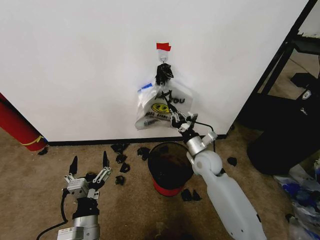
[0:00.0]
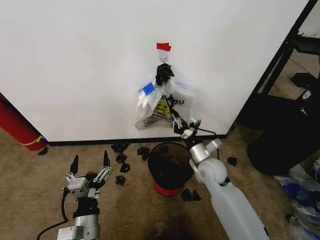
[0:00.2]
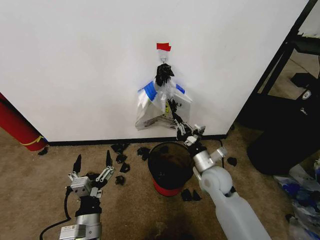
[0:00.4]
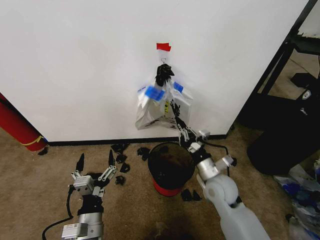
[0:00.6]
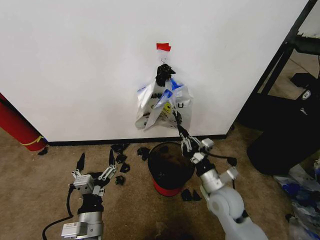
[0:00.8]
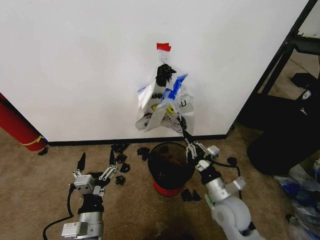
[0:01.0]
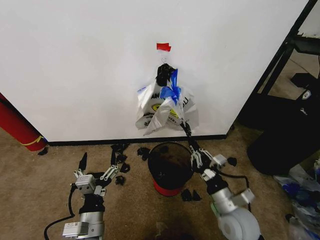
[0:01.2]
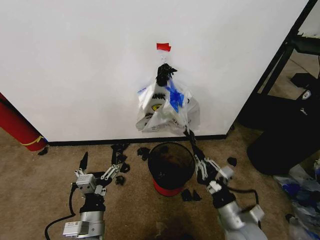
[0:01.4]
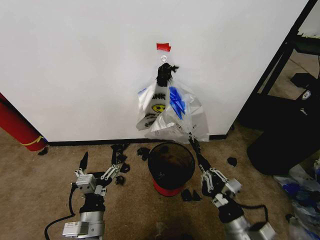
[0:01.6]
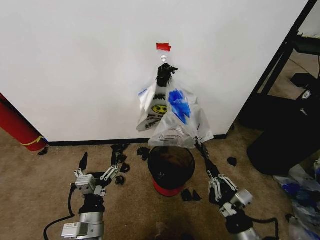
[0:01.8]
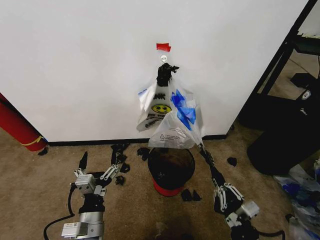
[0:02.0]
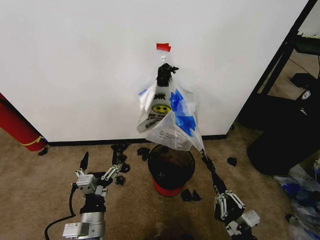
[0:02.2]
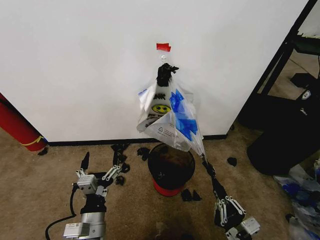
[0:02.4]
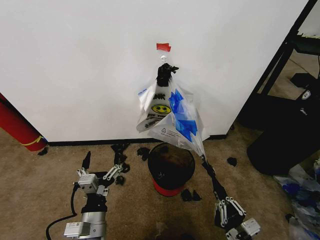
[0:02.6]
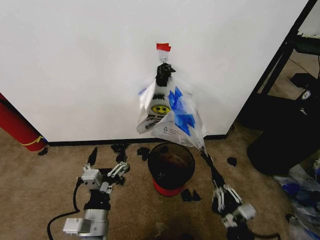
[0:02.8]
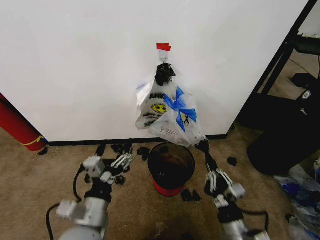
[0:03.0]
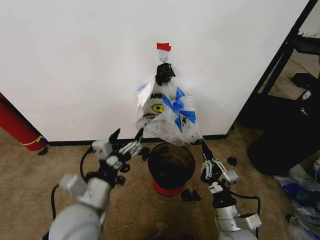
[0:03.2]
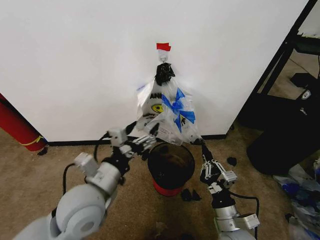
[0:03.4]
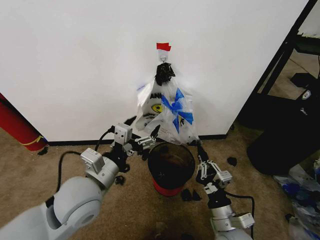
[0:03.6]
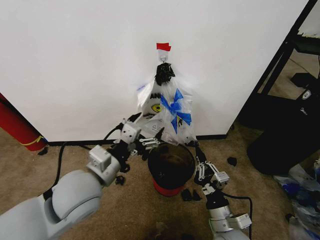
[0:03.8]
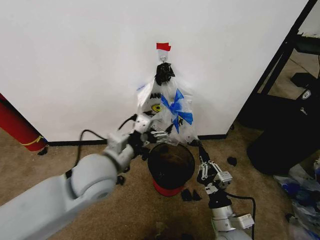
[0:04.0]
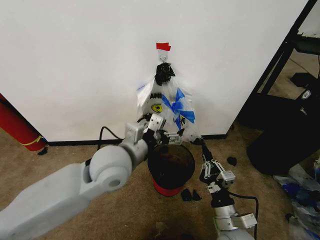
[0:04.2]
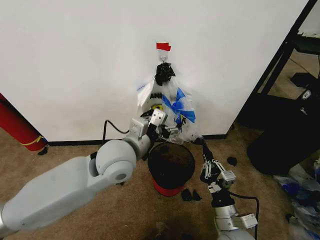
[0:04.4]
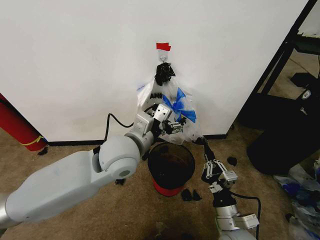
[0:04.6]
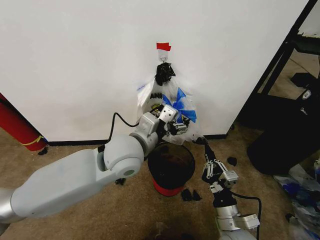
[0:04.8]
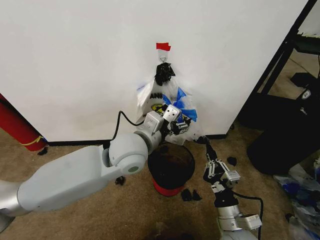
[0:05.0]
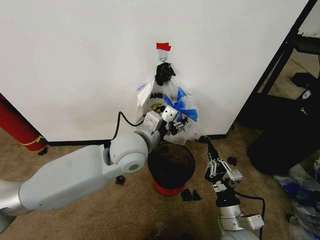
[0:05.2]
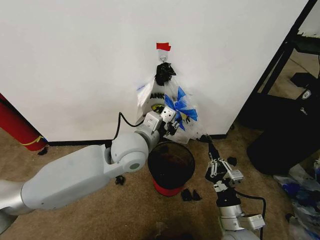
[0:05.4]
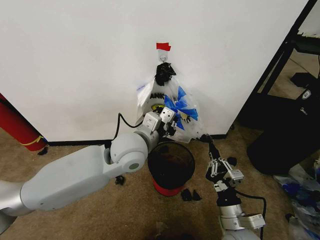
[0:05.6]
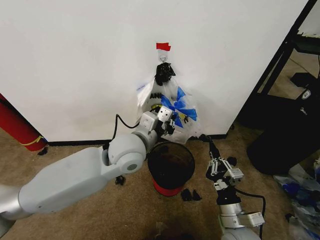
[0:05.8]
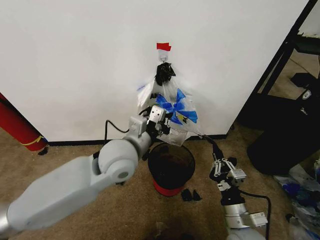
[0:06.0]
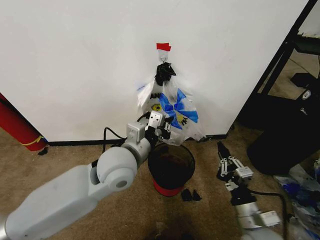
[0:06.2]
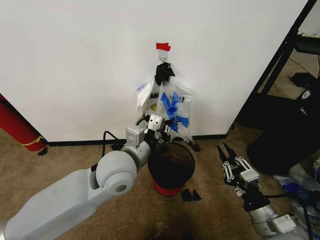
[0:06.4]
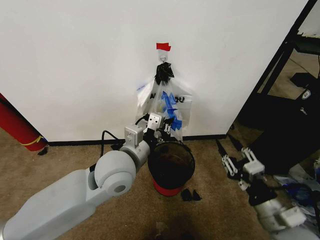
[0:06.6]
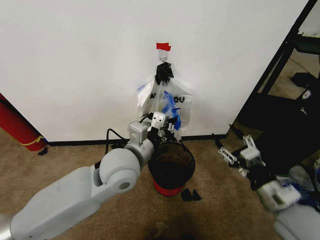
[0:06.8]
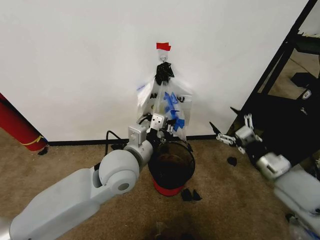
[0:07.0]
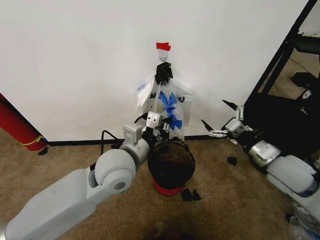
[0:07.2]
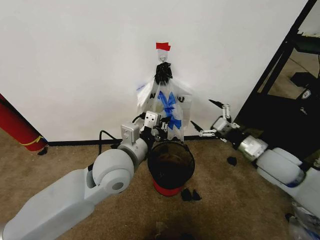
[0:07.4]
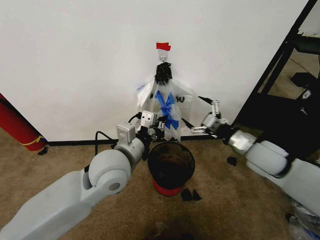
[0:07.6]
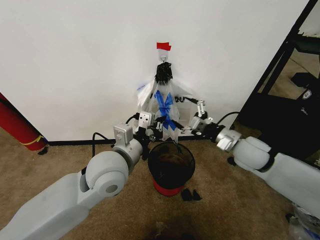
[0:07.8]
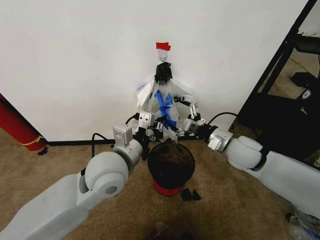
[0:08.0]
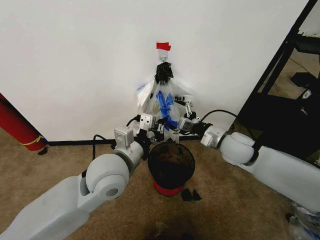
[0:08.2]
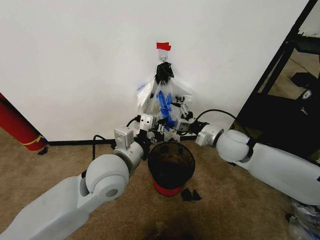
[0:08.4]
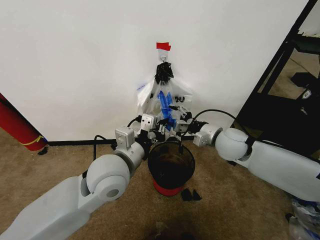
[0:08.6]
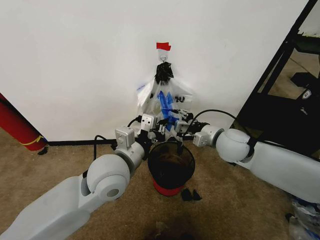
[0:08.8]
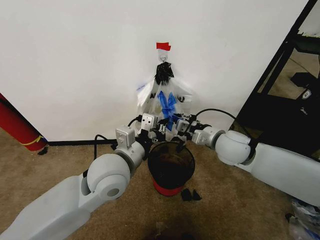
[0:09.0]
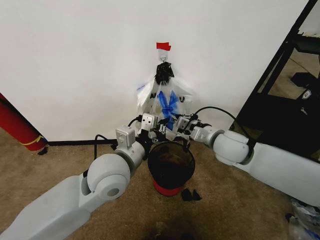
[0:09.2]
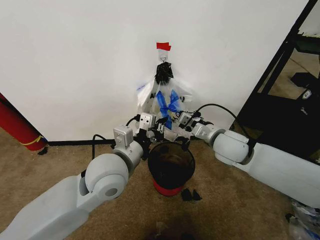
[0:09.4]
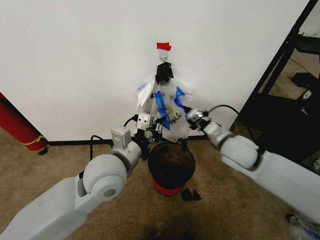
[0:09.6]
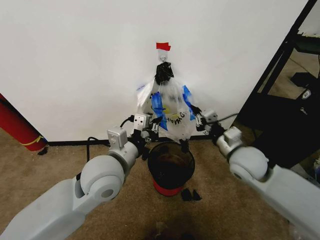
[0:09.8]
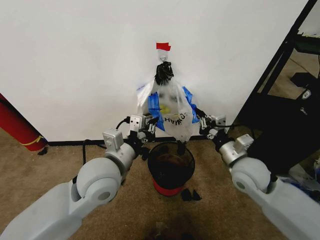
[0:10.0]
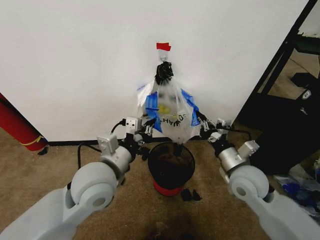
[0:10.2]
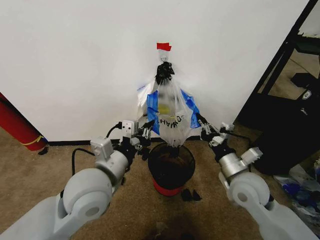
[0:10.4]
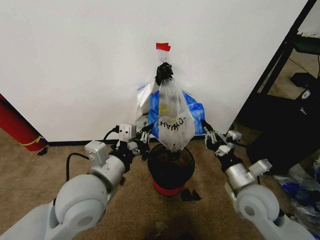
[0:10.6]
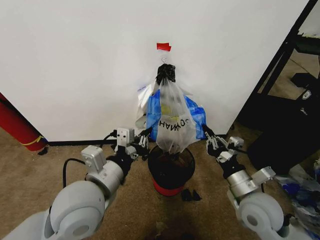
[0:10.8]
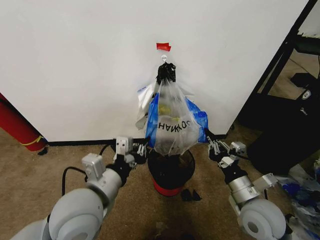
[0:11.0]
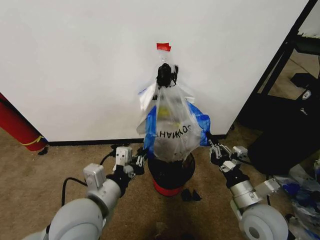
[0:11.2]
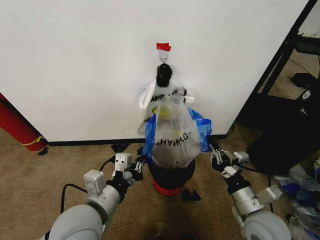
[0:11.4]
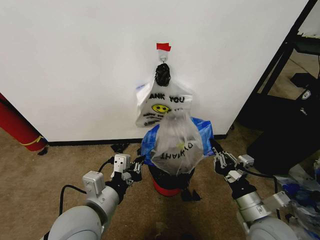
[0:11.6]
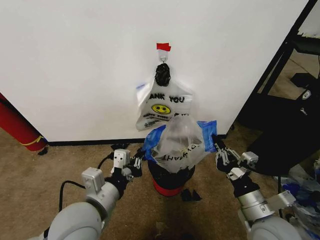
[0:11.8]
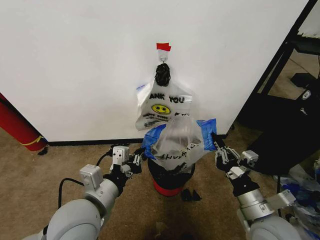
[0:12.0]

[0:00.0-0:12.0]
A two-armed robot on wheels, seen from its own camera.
Task of the whole recording: Pick up the garbage bag from the wall and place it over the trash bin.
0:00.0 to 0:01.6: The right gripper is displaced backward by some 25 cm.
0:01.6 to 0:03.0: The right gripper moves some 10 cm backward and comes back; the left gripper shifts some 5 cm upward.
0:03.0 to 0:04.4: The left gripper travels forward, upward and to the right by approximately 20 cm.
0:04.4 to 0:06.0: The left gripper closes.
0:06.0 to 0:07.6: The right gripper travels forward and upward by about 25 cm, and opens its fingers.
0:07.6 to 0:09.0: The right gripper goes about 10 cm to the left, and closes.
0:09.0 to 0:10.4: The left gripper moves some 5 cm; the right gripper goes about 10 cm backward and downward.
0:10.4 to 0:12.0: The left gripper heads backward, covering roughly 5 cm; the right gripper goes some 10 cm backward.

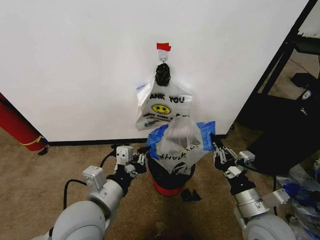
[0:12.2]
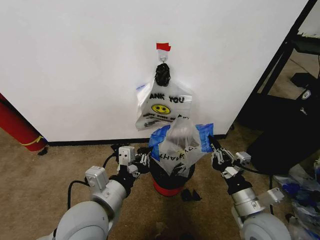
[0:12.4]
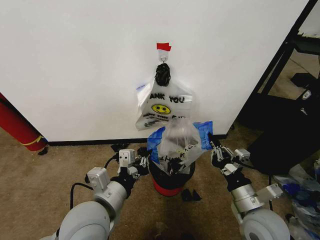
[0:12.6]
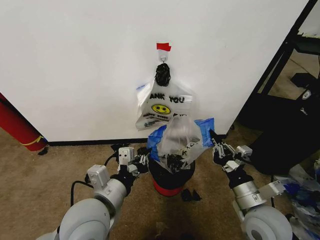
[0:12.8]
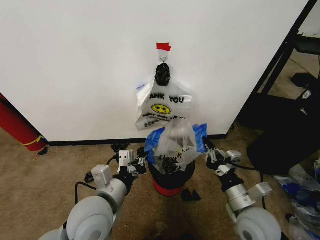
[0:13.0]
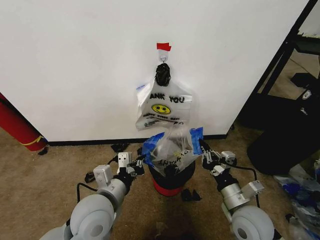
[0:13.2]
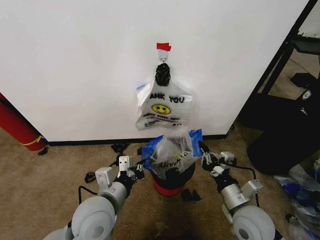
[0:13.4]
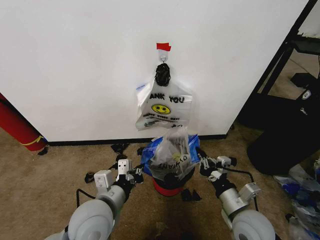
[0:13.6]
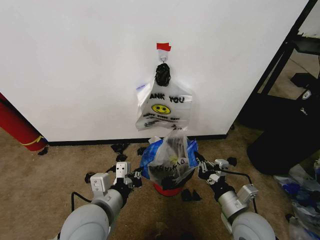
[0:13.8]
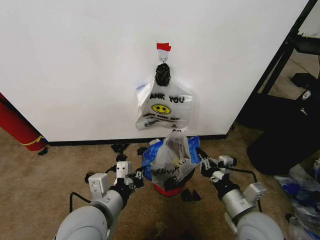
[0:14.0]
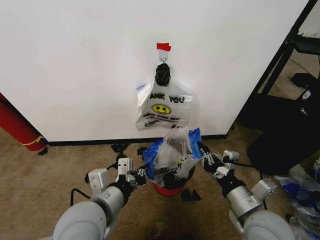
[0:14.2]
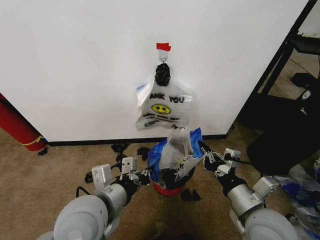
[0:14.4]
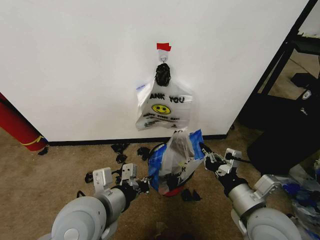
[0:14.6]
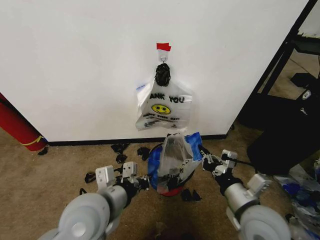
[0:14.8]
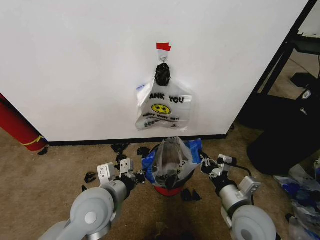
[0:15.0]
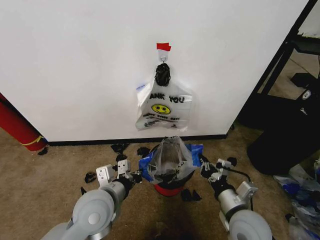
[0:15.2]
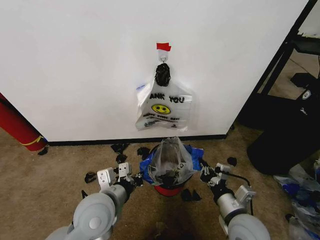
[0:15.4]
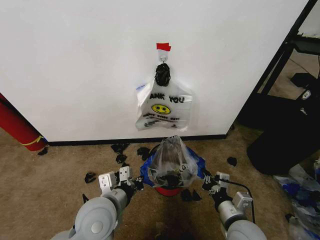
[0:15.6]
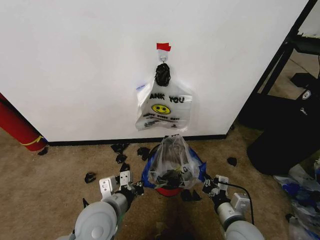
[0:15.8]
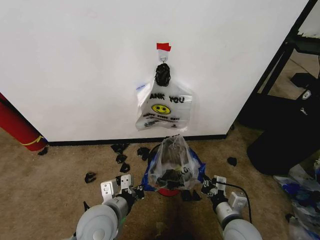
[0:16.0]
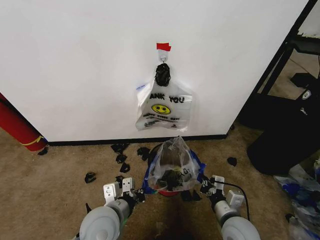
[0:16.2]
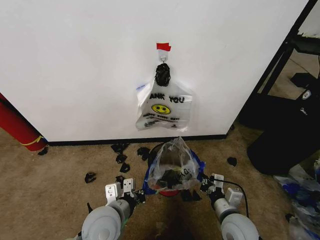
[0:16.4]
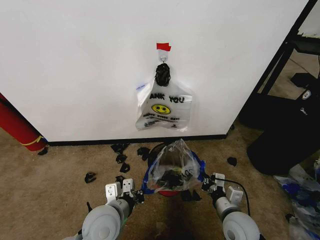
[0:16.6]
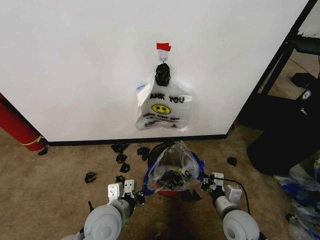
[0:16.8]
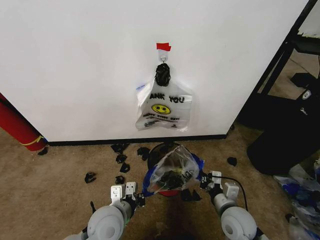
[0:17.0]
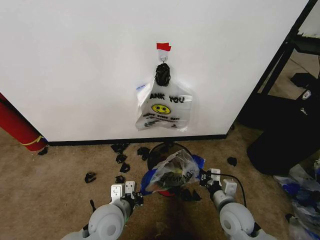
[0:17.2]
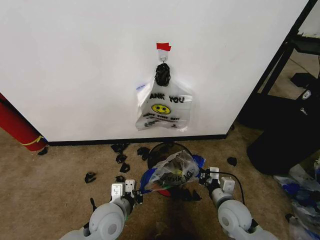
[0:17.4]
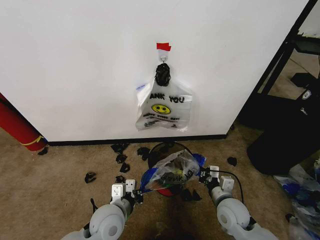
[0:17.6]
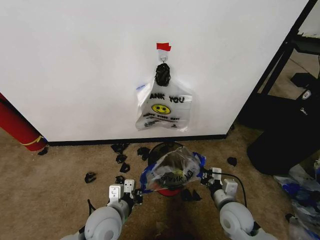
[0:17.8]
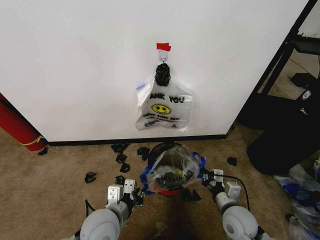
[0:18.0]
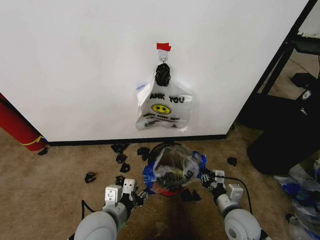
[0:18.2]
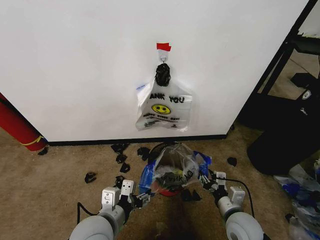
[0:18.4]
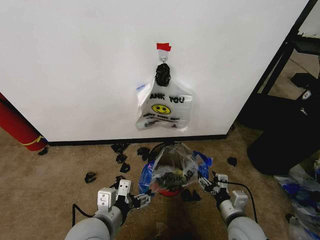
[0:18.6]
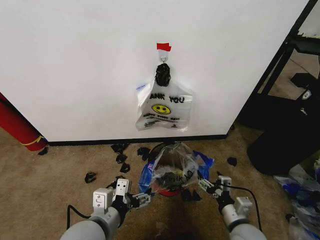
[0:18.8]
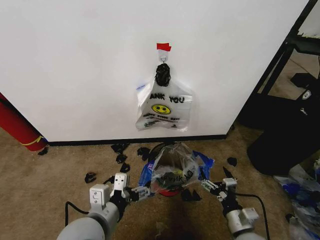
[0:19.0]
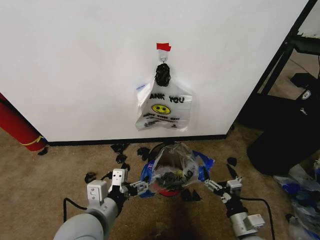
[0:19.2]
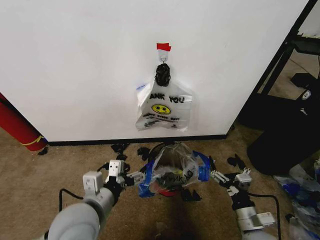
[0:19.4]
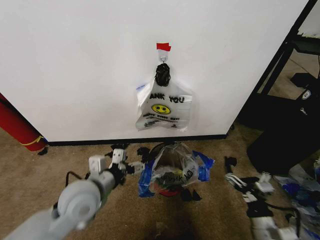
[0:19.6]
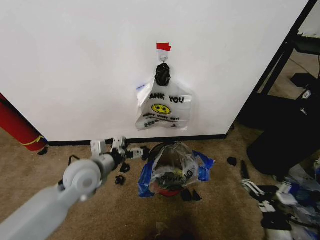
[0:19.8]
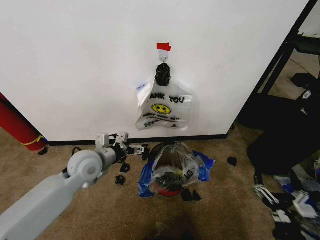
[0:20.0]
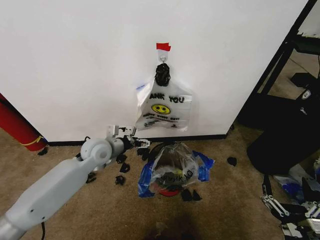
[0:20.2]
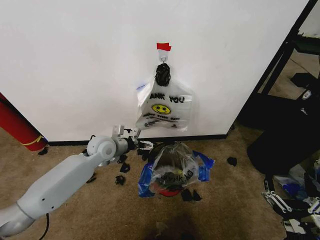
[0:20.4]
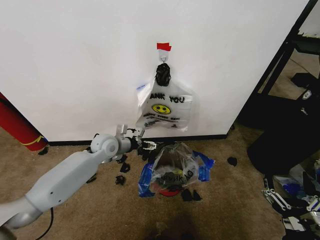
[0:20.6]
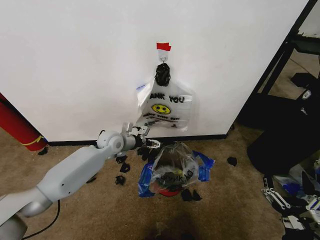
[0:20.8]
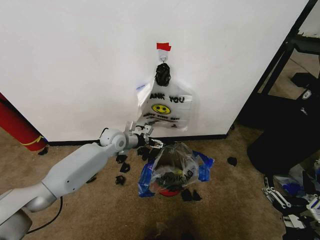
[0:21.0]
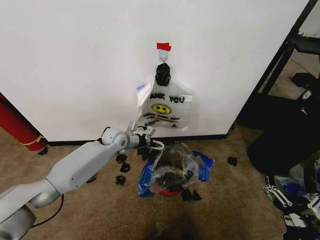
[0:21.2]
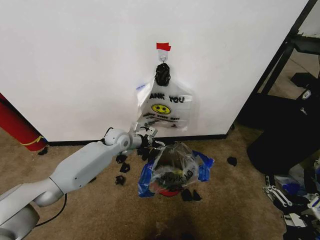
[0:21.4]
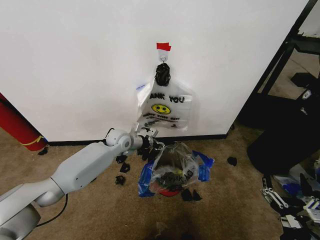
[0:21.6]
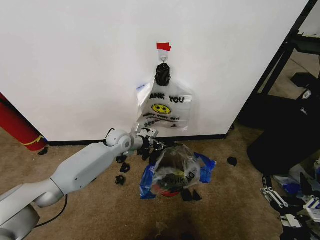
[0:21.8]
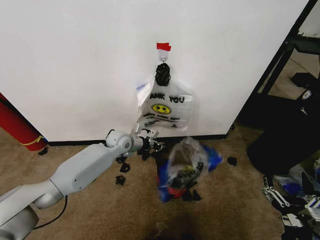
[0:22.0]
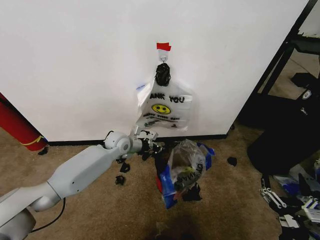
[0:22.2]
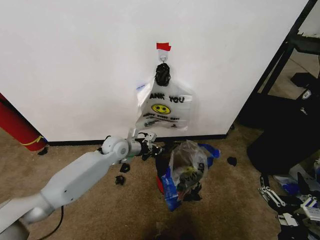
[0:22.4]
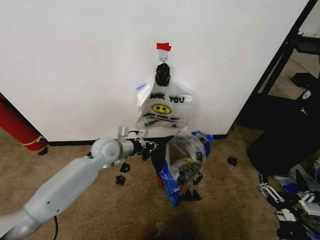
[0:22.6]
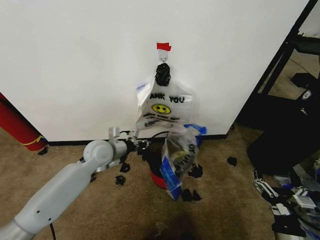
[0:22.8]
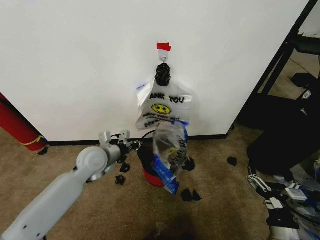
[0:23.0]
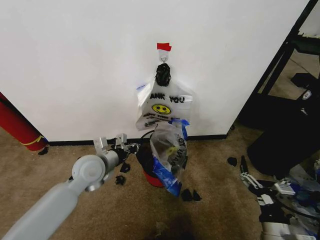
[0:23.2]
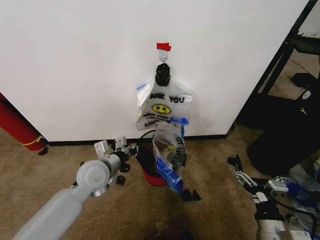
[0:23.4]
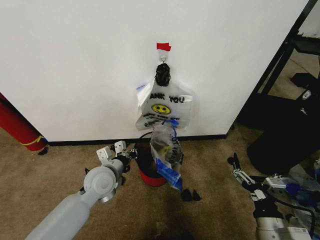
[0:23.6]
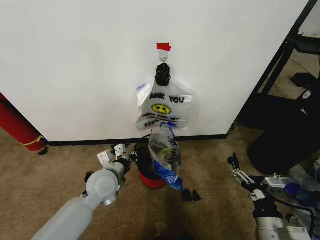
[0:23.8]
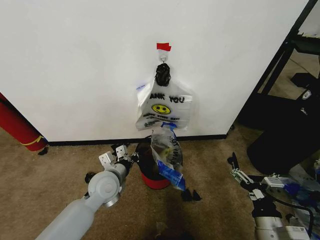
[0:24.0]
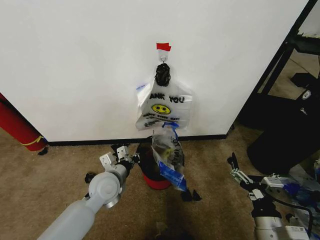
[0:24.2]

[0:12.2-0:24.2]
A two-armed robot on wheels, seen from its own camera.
Task of the whole recording: Pick up the garbage bag from the wall and place it over the trash bin.
0:12.2 to 0:13.8: The grippers make only small movements.
0:13.8 to 0:15.2: The left gripper shifts by about 5 cm; the right gripper goes upward and returns, some 10 cm each way.
0:15.2 to 0:16.6: The grippers both shift downward by approximately 5 cm.
0:16.6 to 0:18.2: The left gripper opens up.
0:18.2 to 0:19.8: The right gripper is displaced backward and to the right by about 15 cm, and opens up; the left gripper shifts roughly 15 cm forward and to the left, and opens its fingers.
0:19.8 to 0:21.2: The right gripper ends up approximately 5 cm from where it was. The left gripper is displaced forward by roughly 20 cm.
0:21.2 to 0:22.6: The left gripper goes roughly 5 cm backward, and closes its fingers.
0:22.6 to 0:24.2: The left gripper is displaced backward by about 10 cm. Meanwhile the right gripper moves approximately 5 cm.
